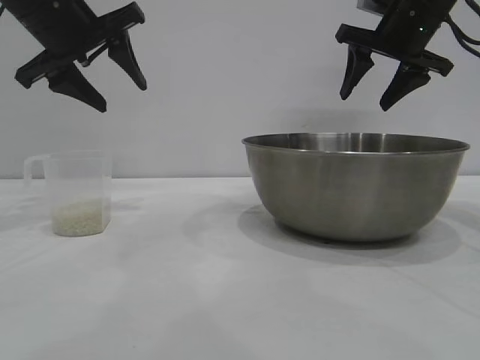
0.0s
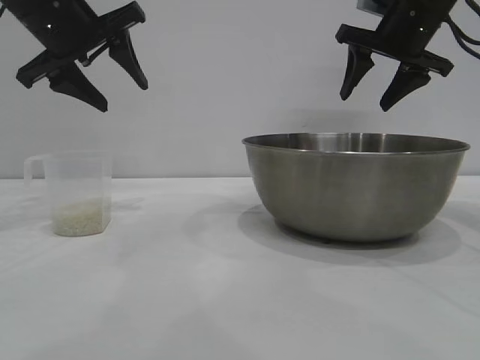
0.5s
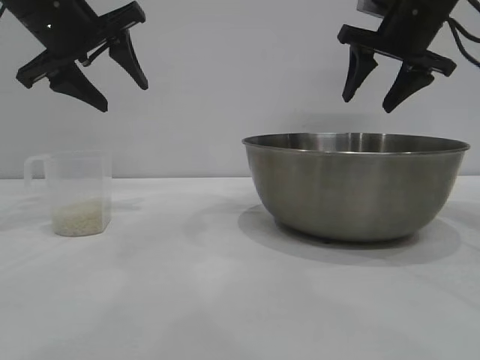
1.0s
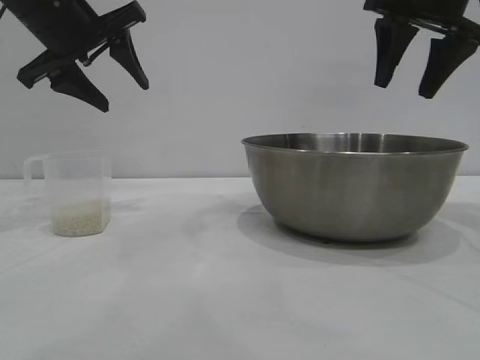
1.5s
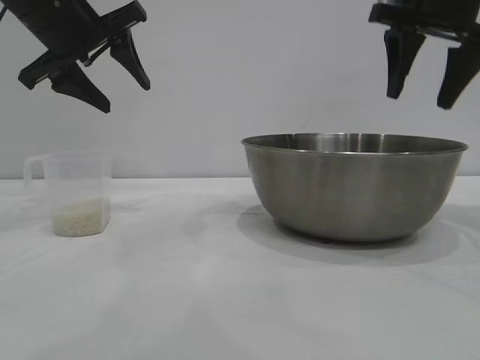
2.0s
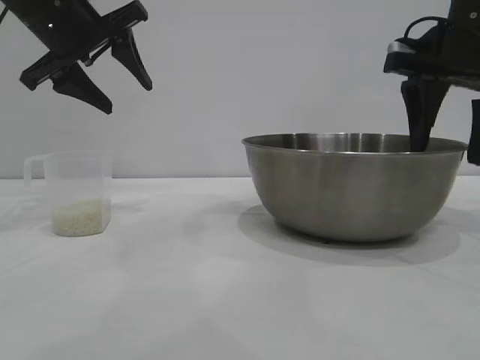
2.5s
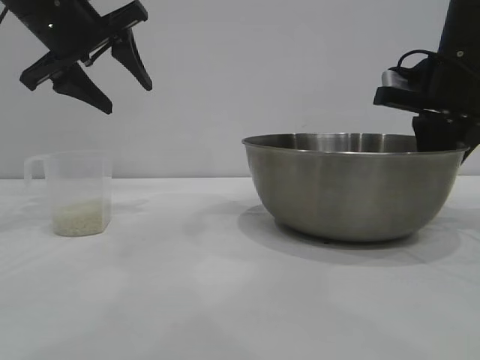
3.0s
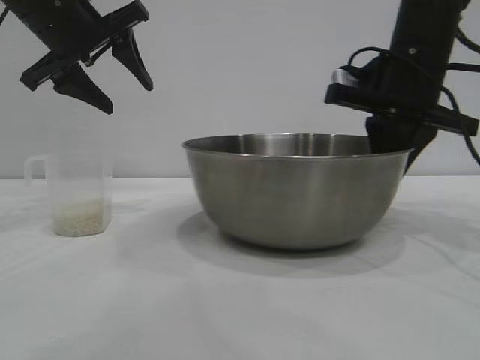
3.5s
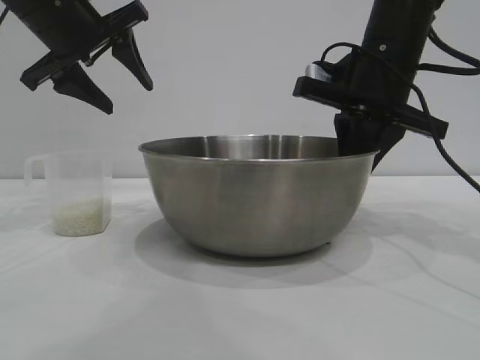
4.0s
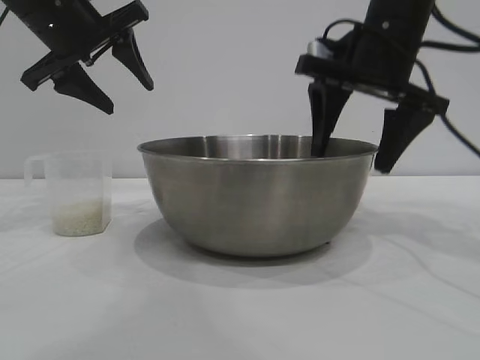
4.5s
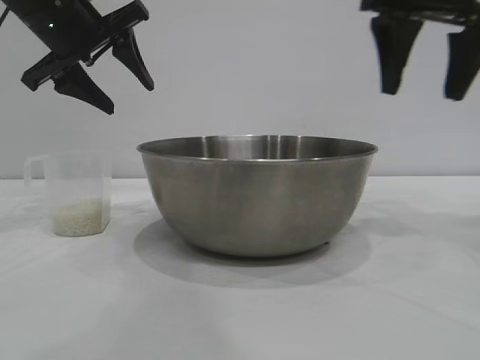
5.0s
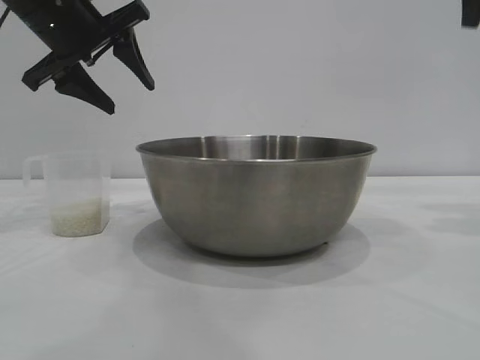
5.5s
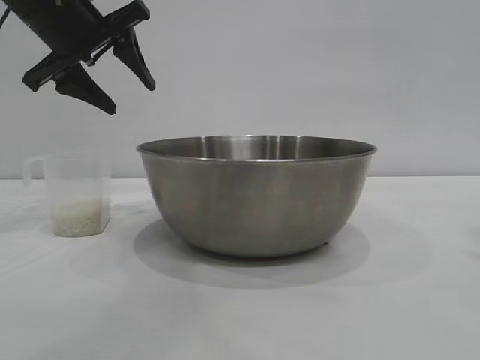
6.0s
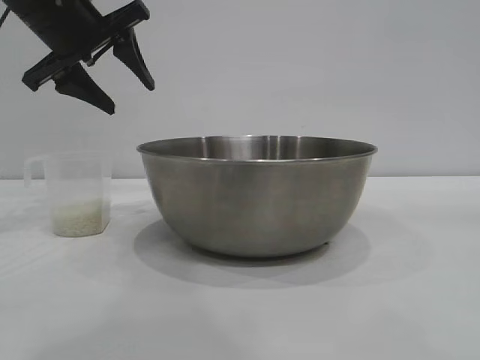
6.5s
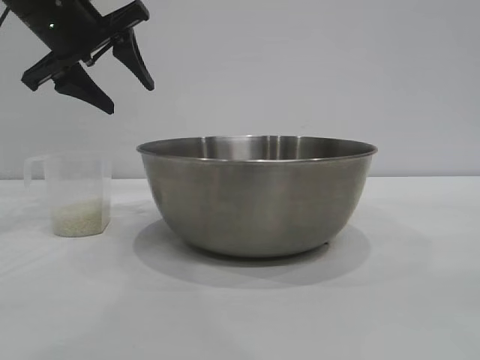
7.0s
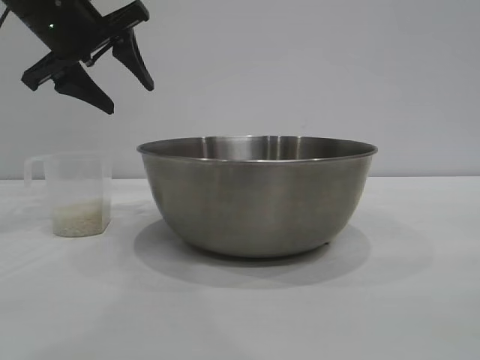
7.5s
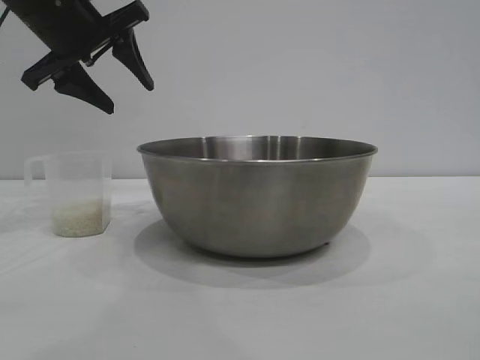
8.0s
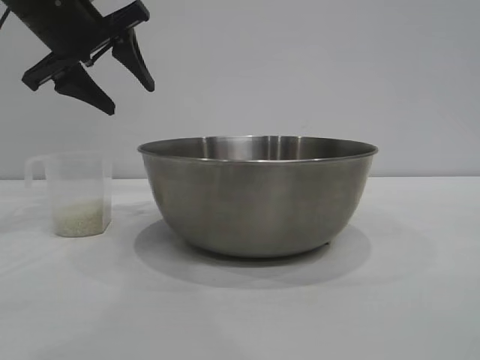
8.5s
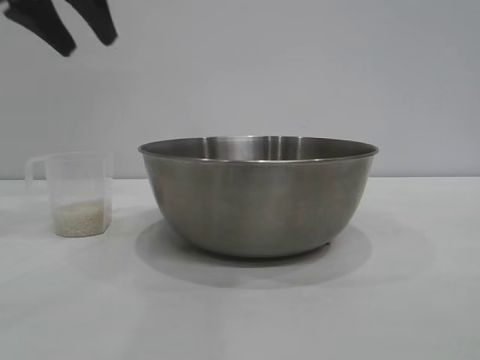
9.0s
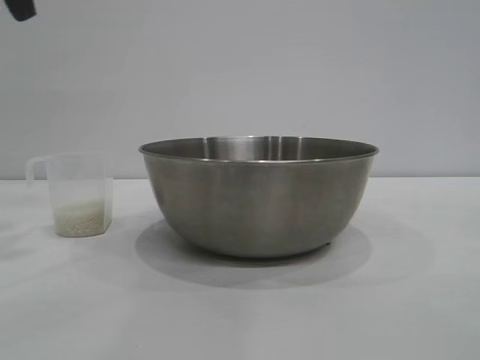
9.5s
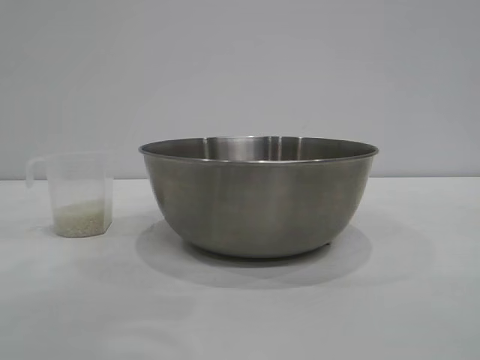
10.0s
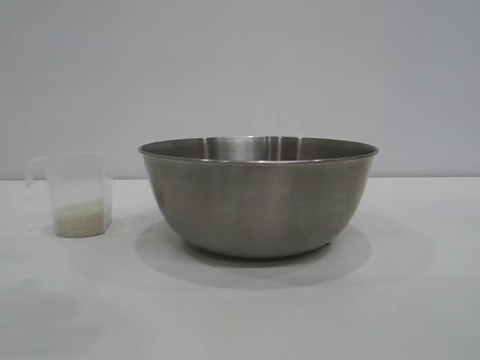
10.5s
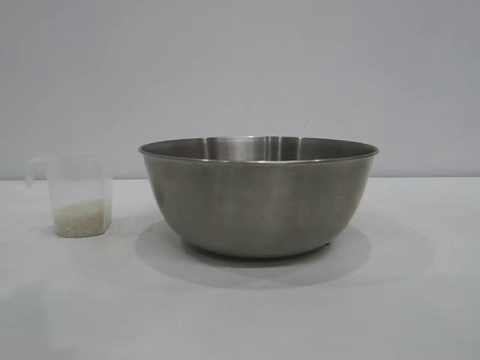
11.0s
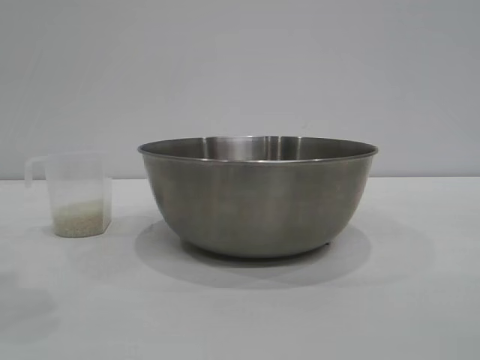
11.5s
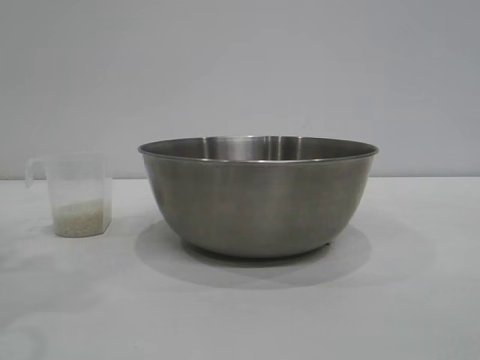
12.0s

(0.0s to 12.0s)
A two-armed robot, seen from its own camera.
Task of the whole recording: the right gripper grasp the rice container and place it in the center of the table, the left gripper grasp the rice scoop and pour the rice into the rice container.
Step, 0.0s - 4.5s: Move the bowl to the center of view with the right gripper.

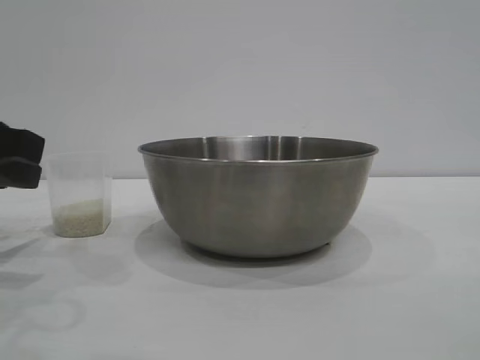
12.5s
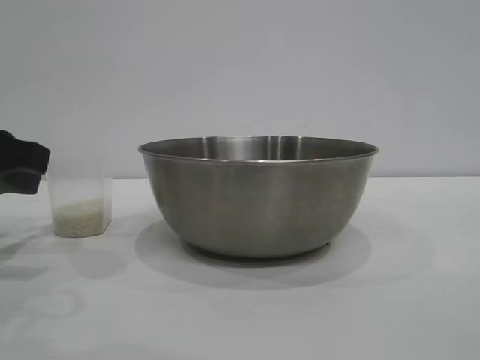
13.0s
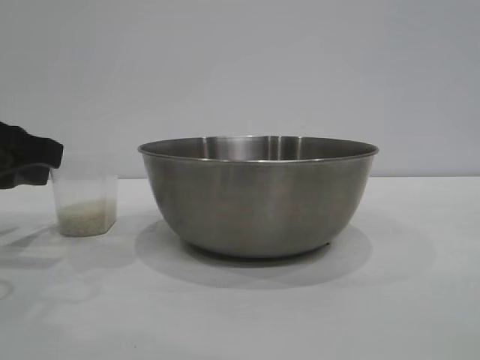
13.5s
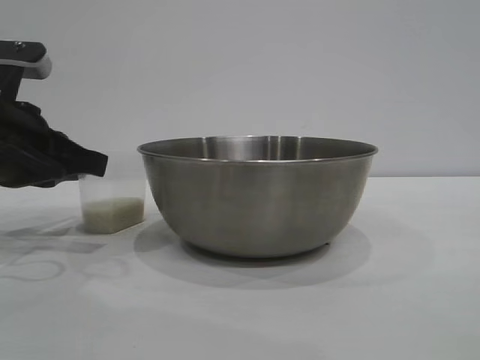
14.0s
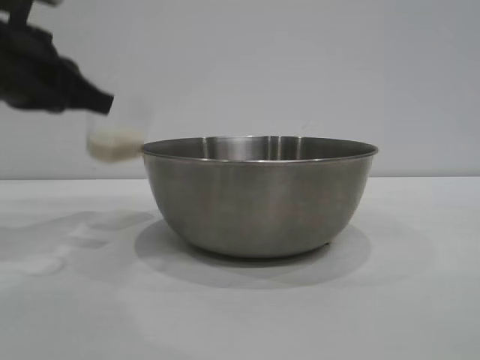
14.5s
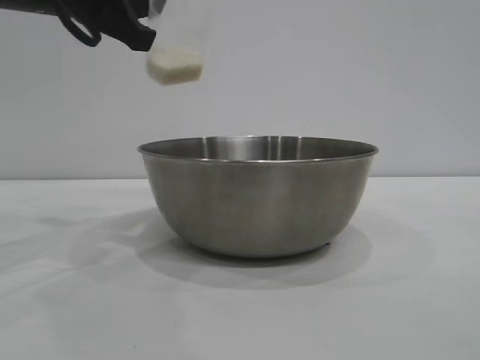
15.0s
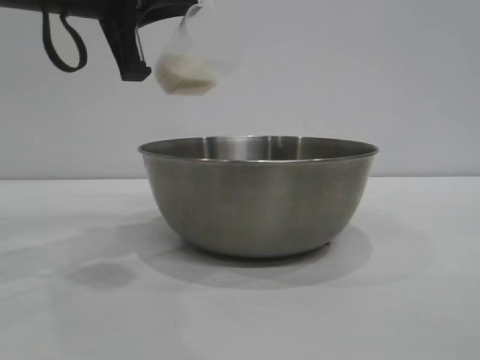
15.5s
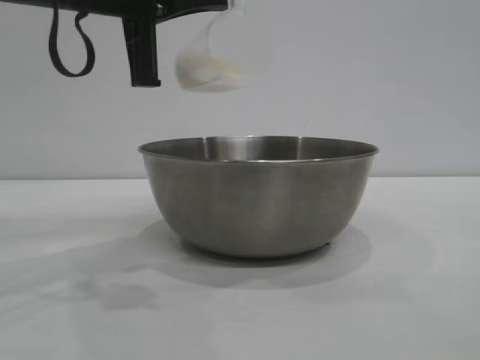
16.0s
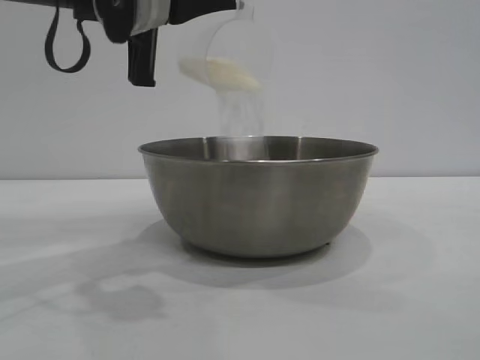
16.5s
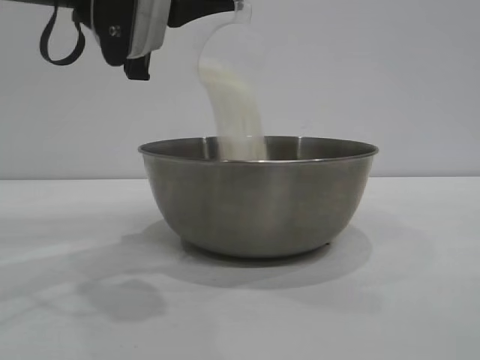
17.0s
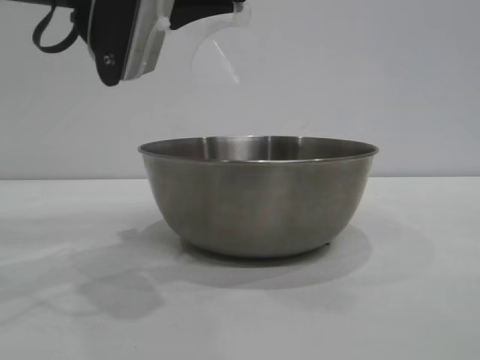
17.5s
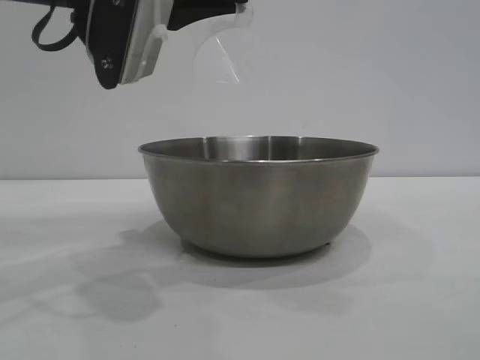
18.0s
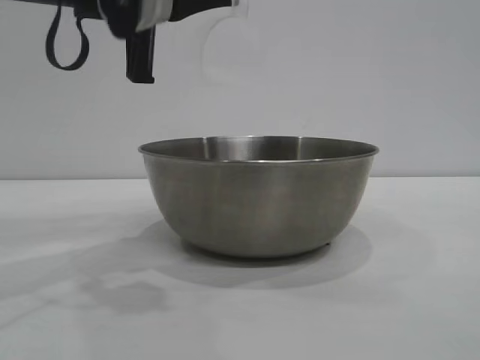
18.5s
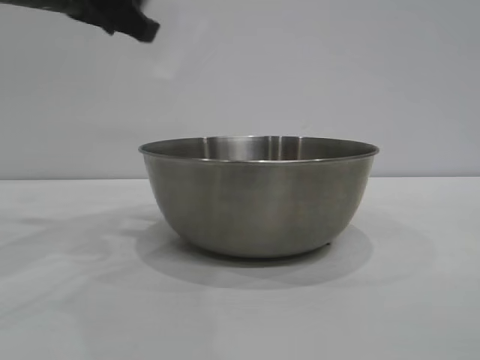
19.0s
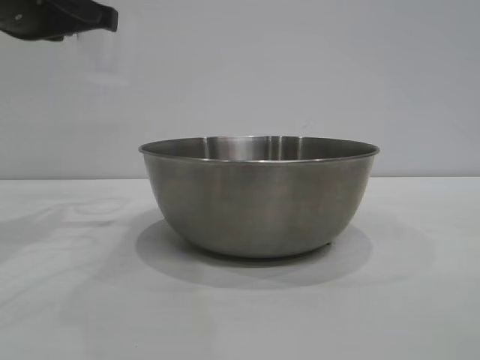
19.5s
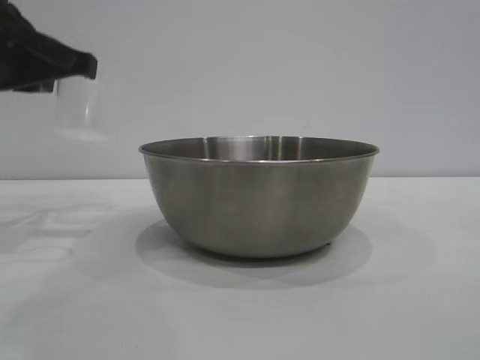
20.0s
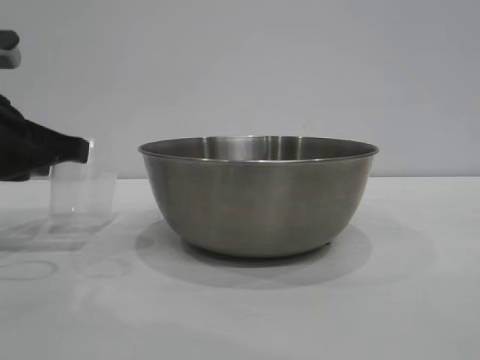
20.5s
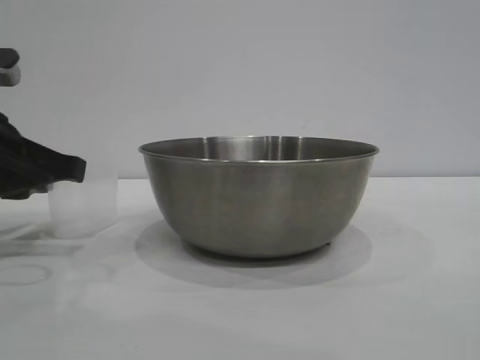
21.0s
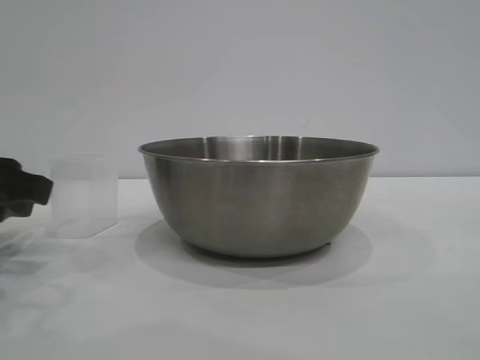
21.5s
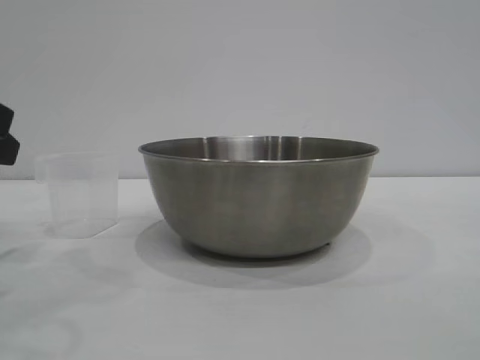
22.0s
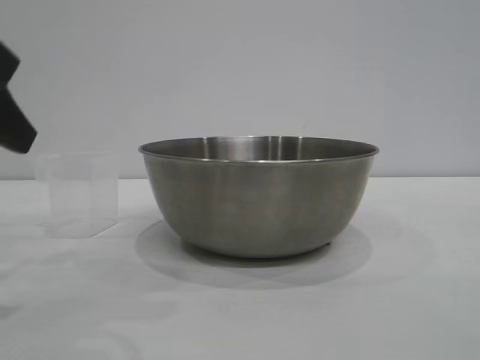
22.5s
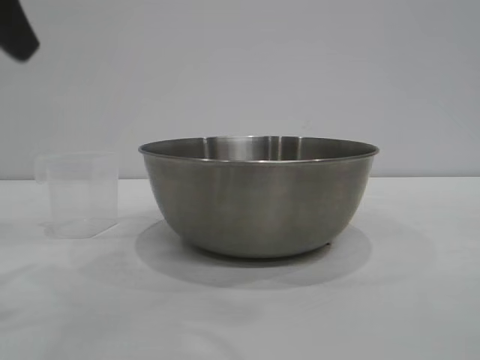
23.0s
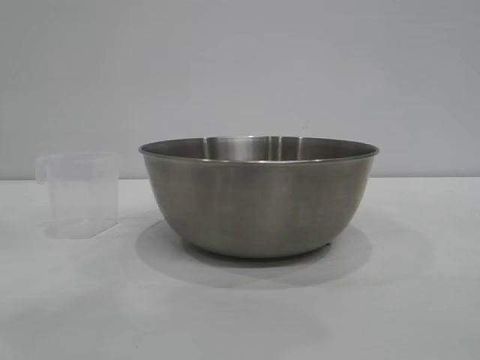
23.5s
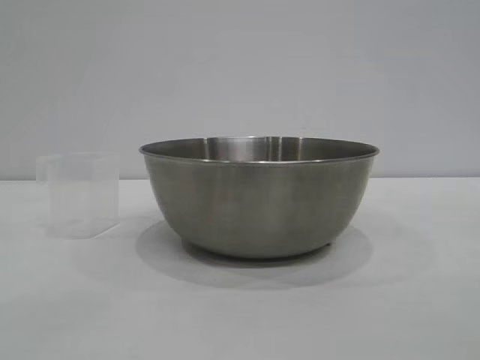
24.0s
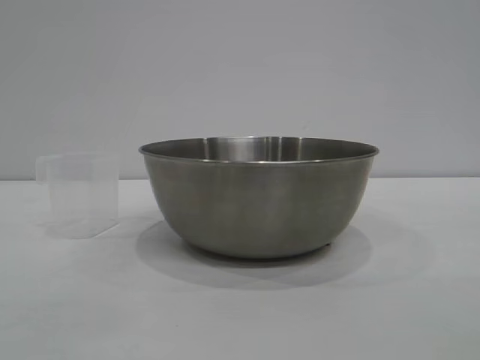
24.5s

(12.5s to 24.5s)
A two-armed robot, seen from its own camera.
Task of the whole recording: the right gripper grasp the rice container and place it in the center of the table, the left gripper grasp the rice scoop and pour the rice into the rice container.
Step, 12.5s - 14.5s: Pick up the cup with rice in it with the left gripper.
Step, 15.0s - 18.5s: Pour the rice from the cup into the bowl with the left gripper.
Step, 19.0s - 21.5s: Place the cup on the table with the left gripper.

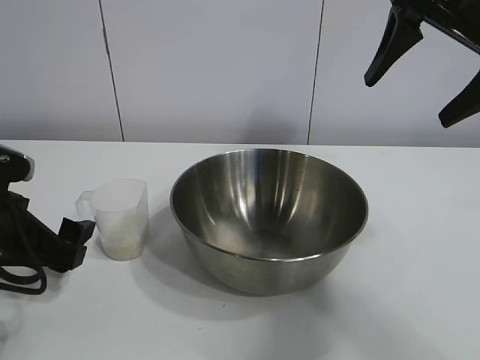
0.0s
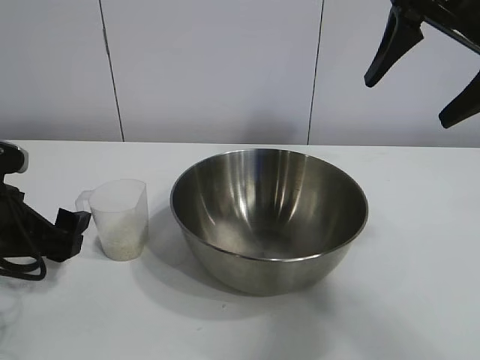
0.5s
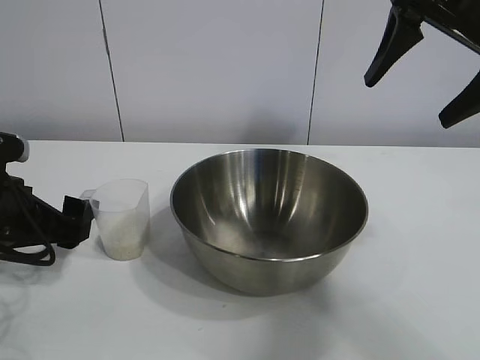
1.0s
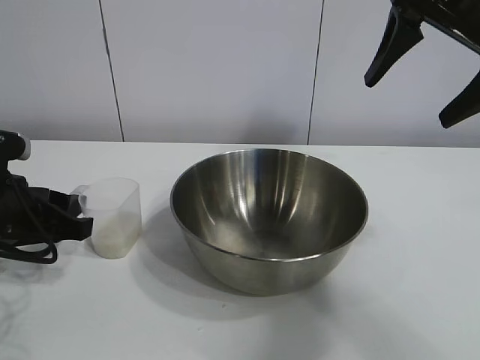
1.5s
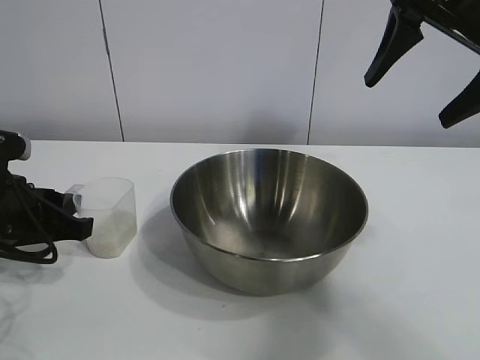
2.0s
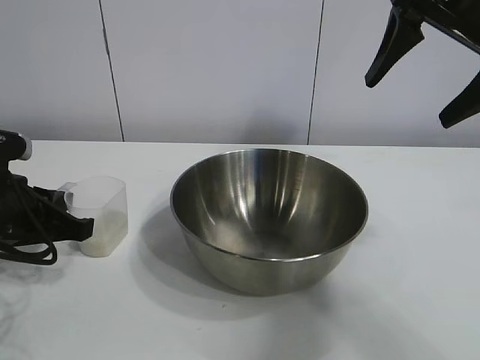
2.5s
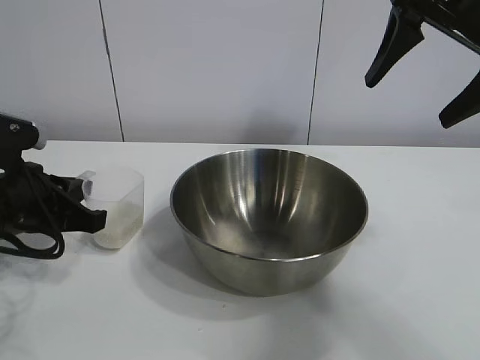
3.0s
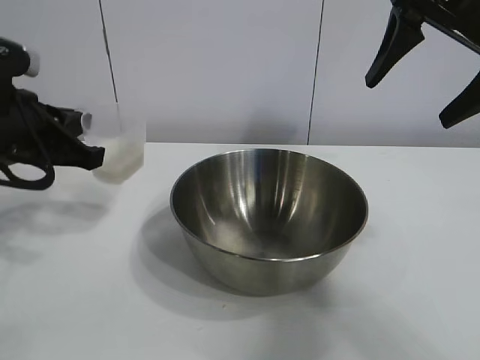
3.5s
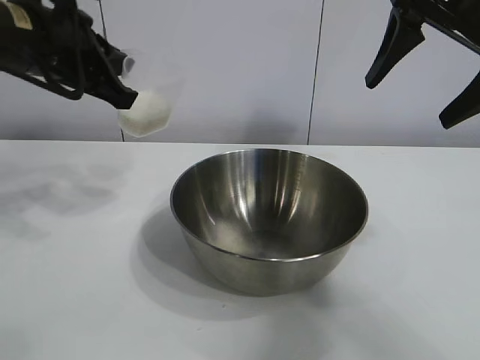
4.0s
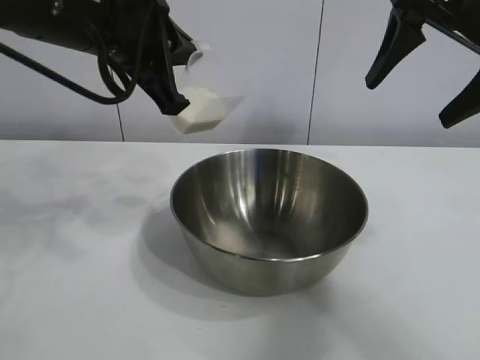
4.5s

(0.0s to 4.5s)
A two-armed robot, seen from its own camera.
Task of the whole recording: the right gripper grasp the rice container and place it in the center of the table, the left gripper grasp the rice scoop and pour the rice into the rice container.
Step, 0.0s - 2.5s: Grasp the cup with rice in it with left gripper.
